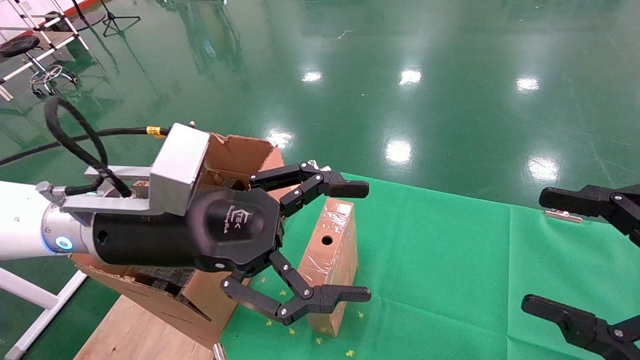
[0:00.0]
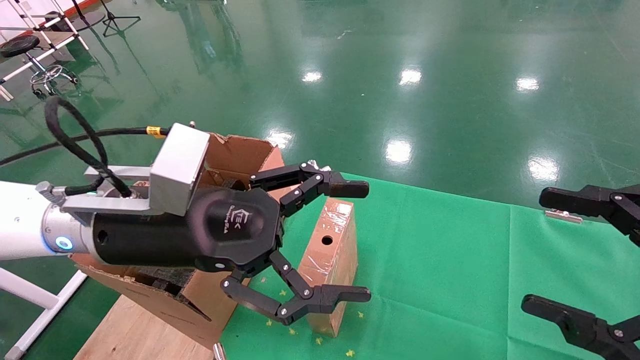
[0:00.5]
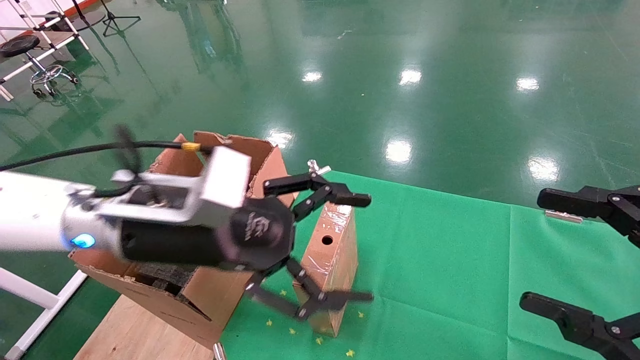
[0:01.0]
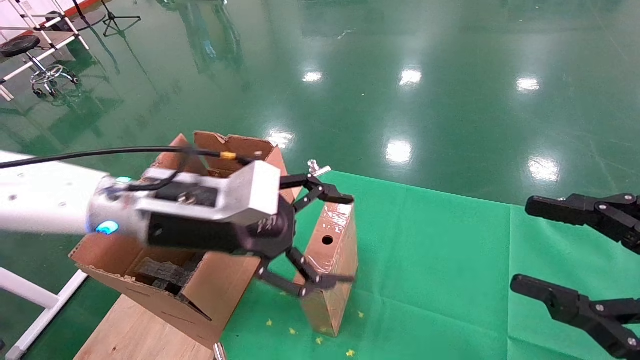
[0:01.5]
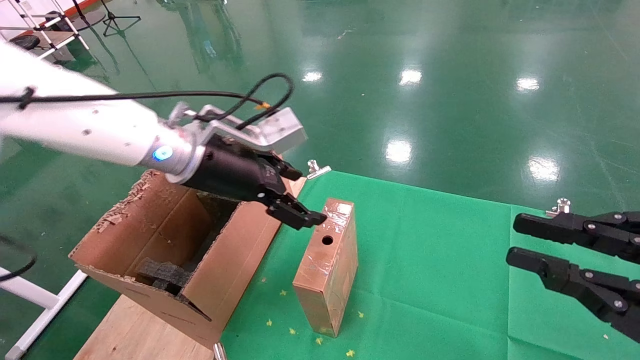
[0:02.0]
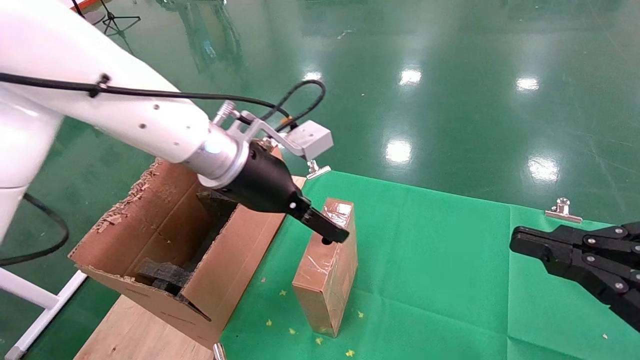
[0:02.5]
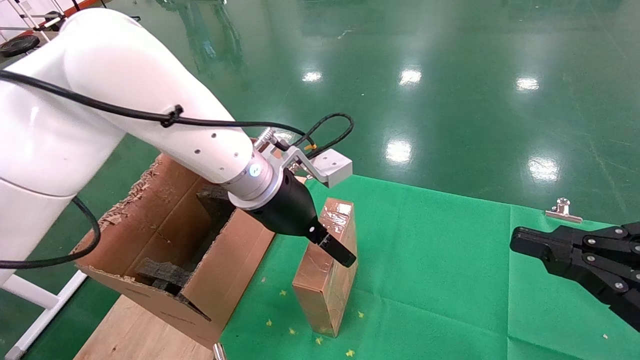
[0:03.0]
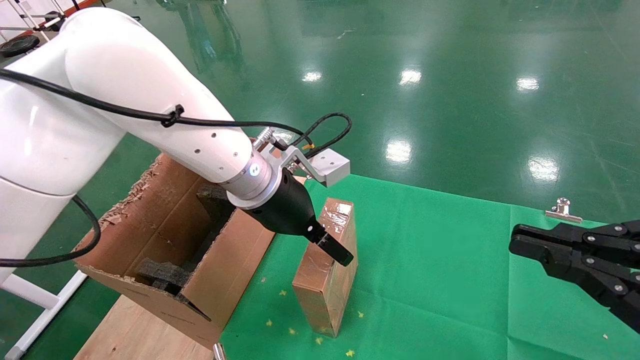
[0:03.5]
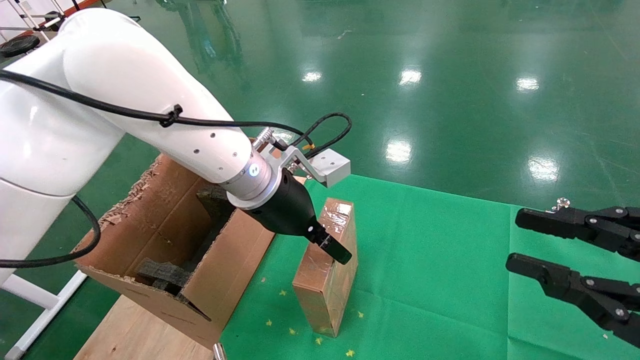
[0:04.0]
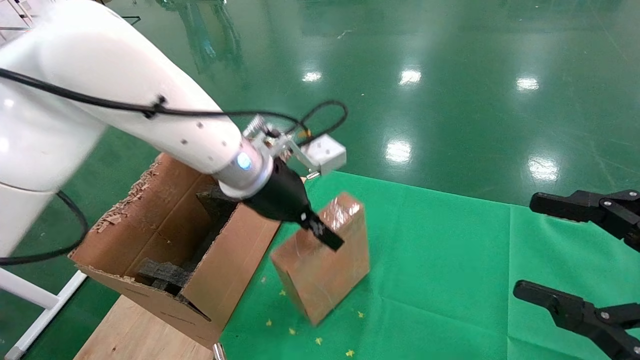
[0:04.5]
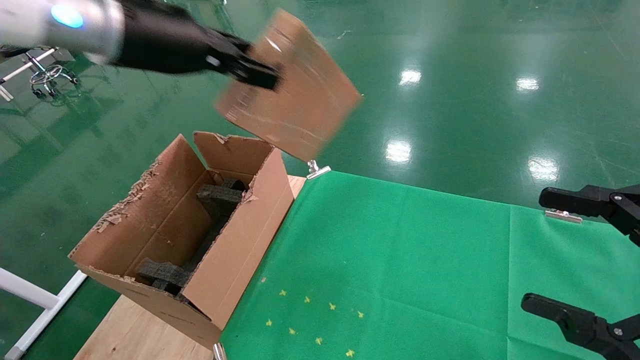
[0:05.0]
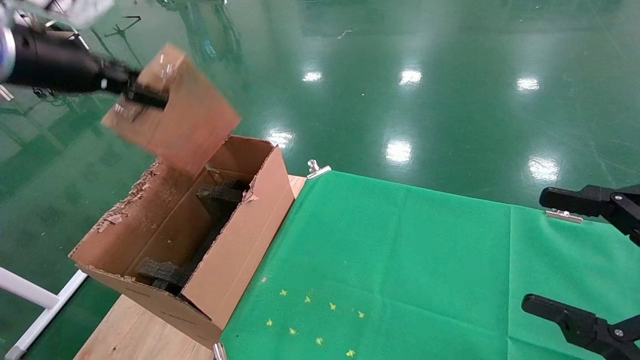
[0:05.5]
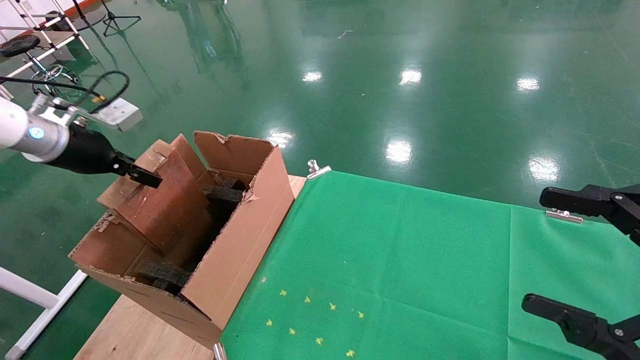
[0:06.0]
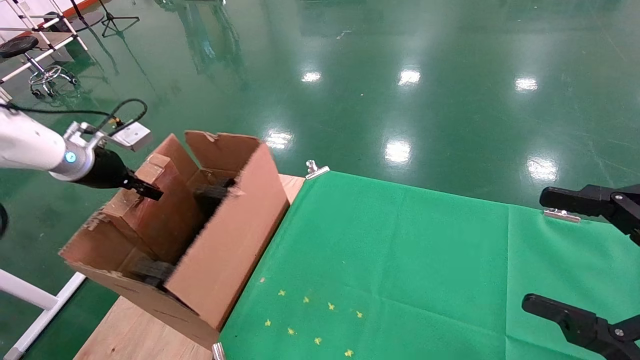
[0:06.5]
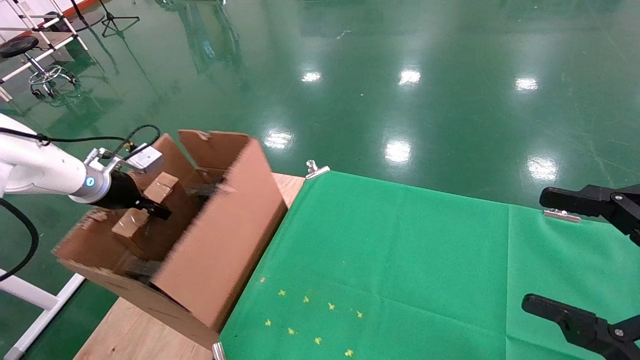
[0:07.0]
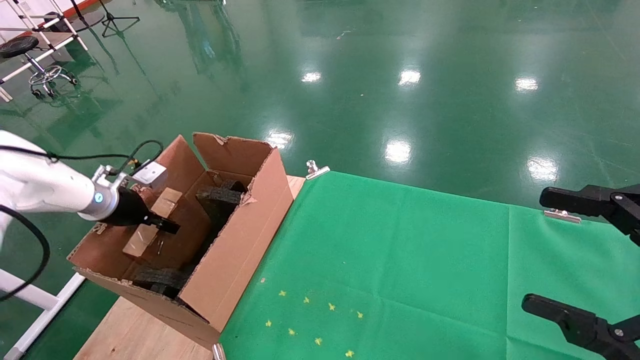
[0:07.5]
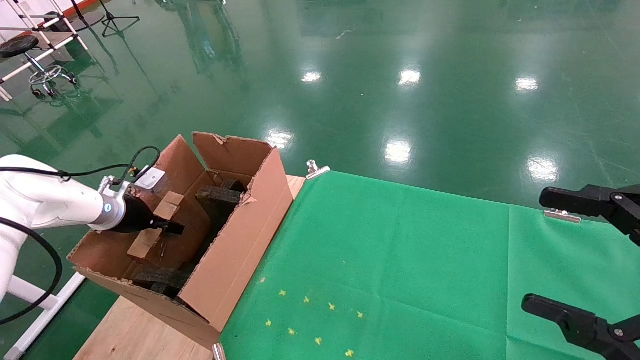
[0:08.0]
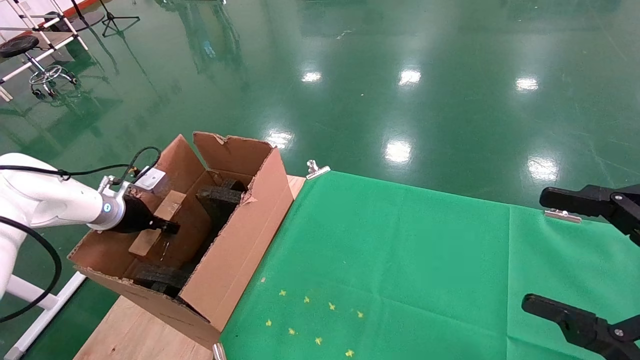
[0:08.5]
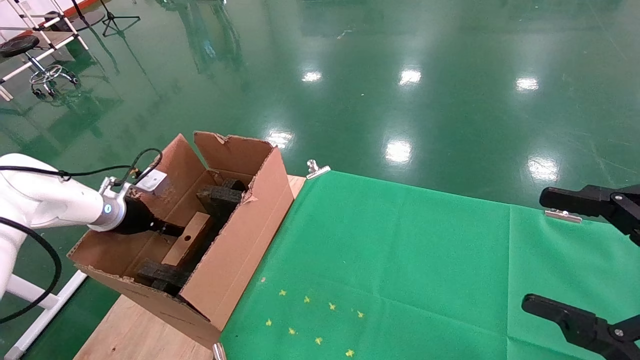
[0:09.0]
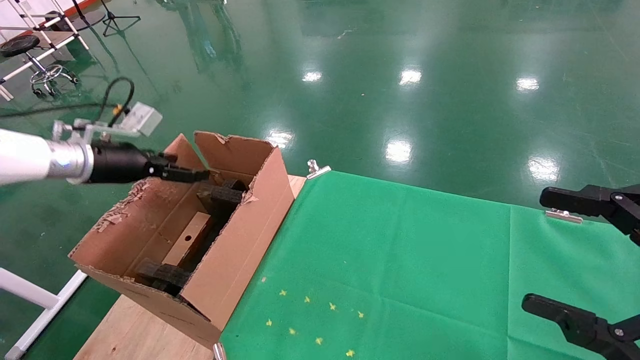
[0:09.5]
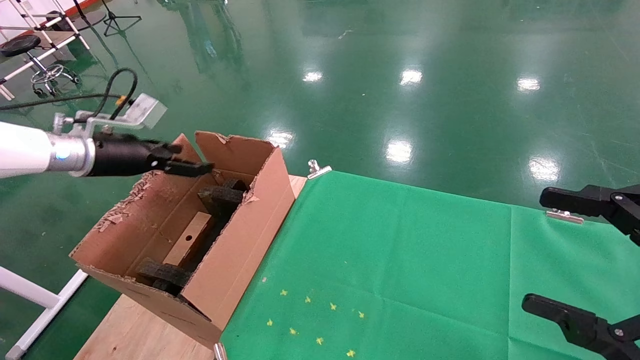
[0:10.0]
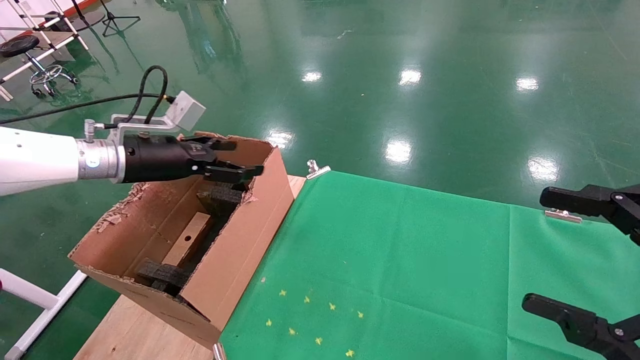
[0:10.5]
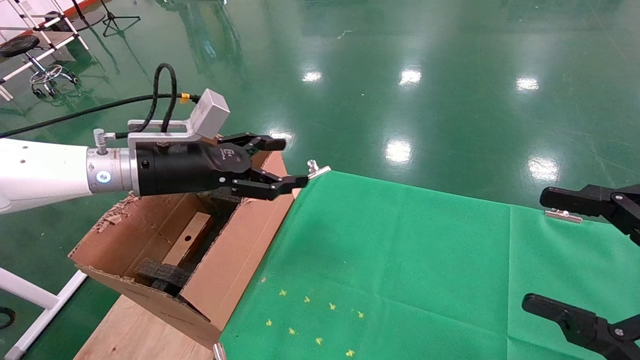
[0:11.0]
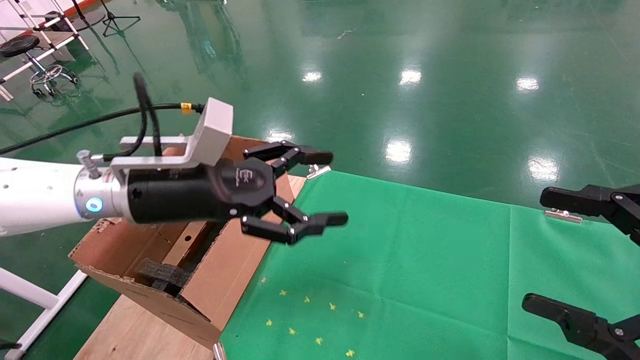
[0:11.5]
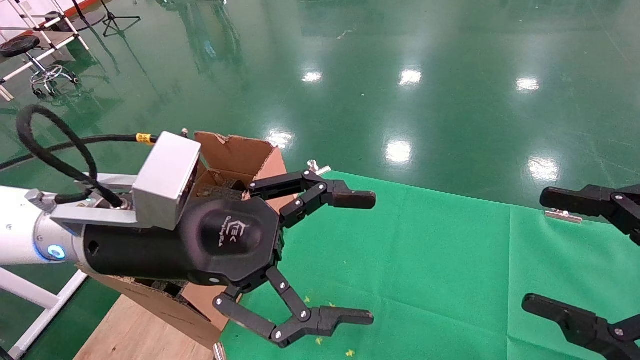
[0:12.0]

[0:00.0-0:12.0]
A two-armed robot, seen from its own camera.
Task of the whole recording: using a robotic arm to pick up a cardboard box and palace it the carton.
Step, 0:01.5 to 0:04.0: Pick up the mouse and the power cord paper box.
Step, 0:04.5 to 0:09.0: Place the mouse and the power cord paper box into the container.
0:00.0 to 0:02.0: The right gripper closes up. Meanwhile the left gripper moves forward, roughly 10 cm.
0:02.0 to 0:04.0: The left gripper is displaced to the right by approximately 5 cm.
0:04.0 to 0:06.0: The left gripper travels to the left by some 35 cm, and closes. Meanwhile the right gripper opens up.
0:06.0 to 0:08.0: The left gripper travels downward by roughly 15 cm.
0:08.0 to 0:10.0: The left gripper heads upward, covering some 10 cm, and opens.
0:10.0 to 0:12.0: The left gripper goes about 25 cm to the right and backward.

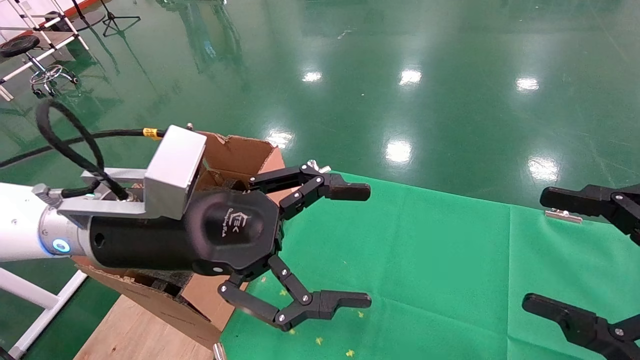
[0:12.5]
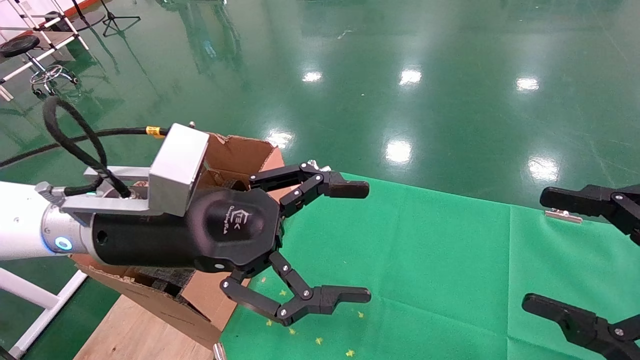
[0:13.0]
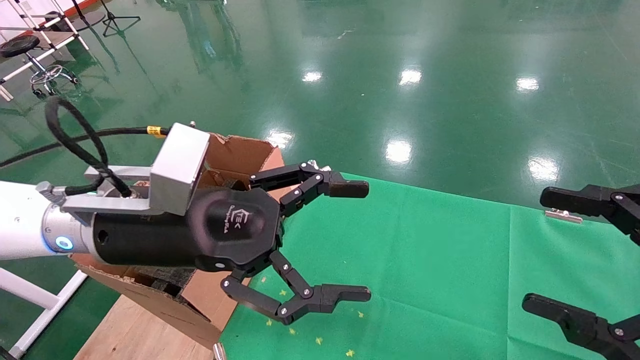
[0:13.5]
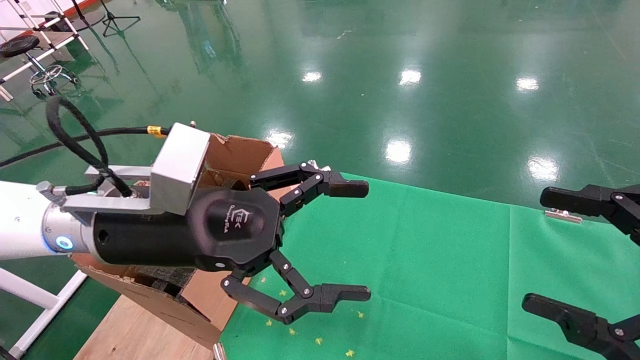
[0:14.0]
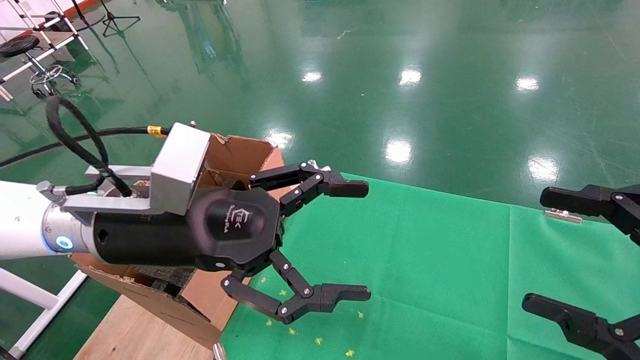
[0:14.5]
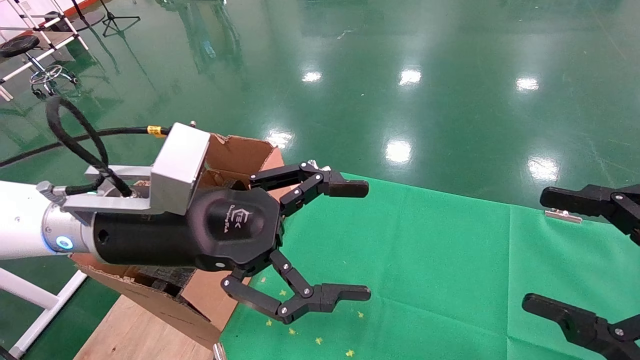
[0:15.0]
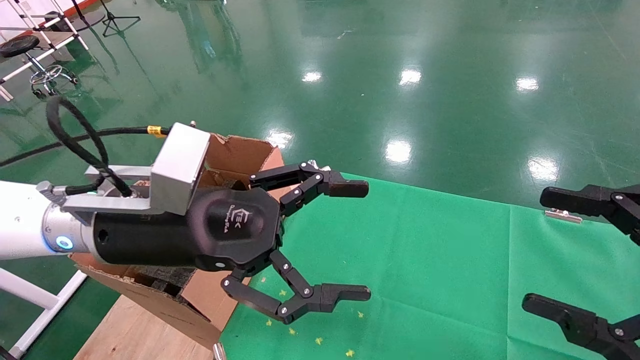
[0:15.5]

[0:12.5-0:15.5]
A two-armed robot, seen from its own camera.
Task of the whole recording: using a robotic arm to pick up a cardboard box and palace it the carton.
0:12.5 to 0:15.5: Neither gripper changes place.
